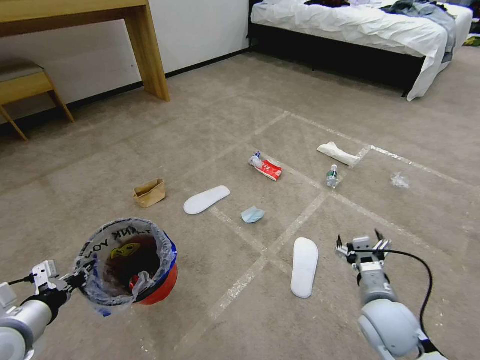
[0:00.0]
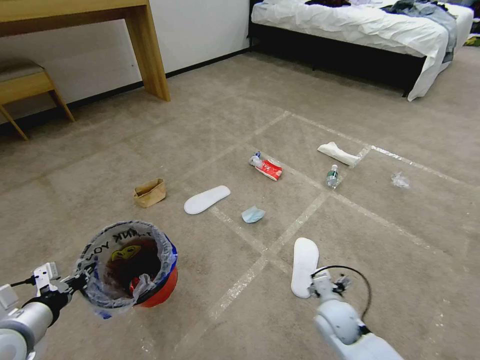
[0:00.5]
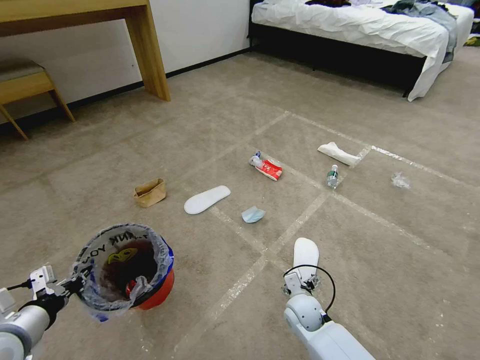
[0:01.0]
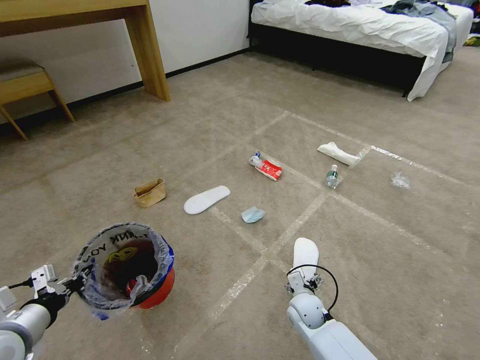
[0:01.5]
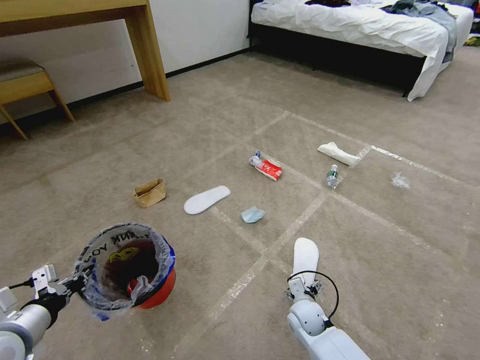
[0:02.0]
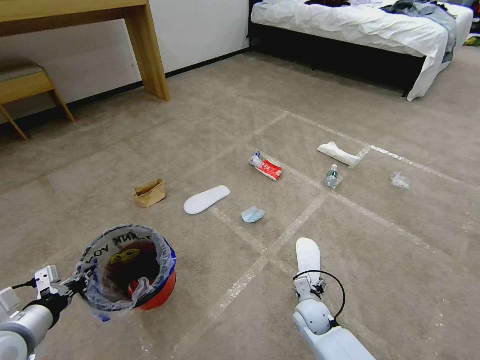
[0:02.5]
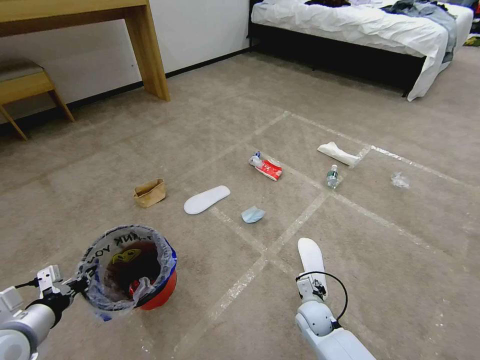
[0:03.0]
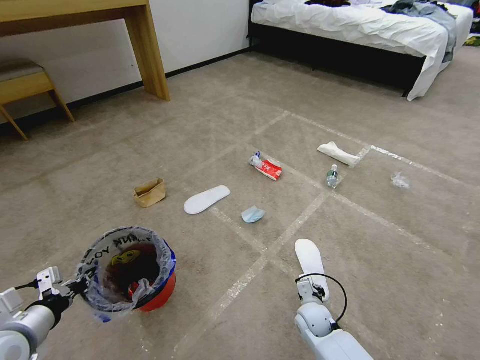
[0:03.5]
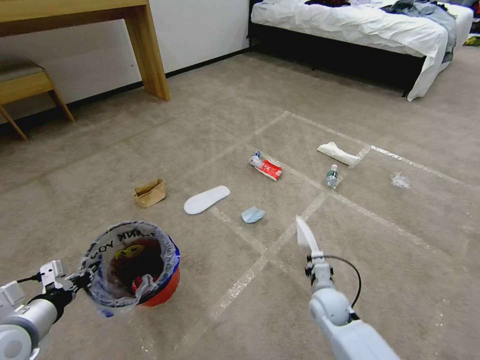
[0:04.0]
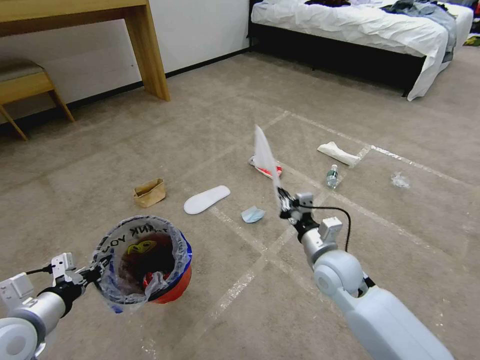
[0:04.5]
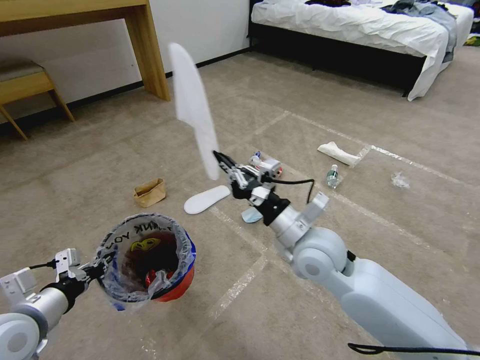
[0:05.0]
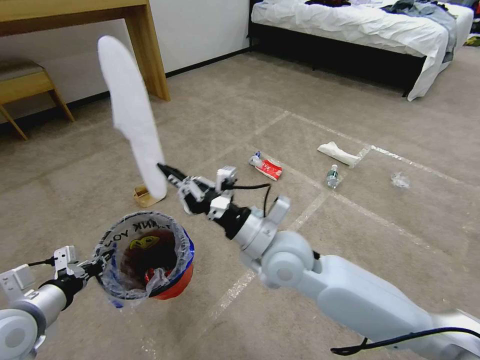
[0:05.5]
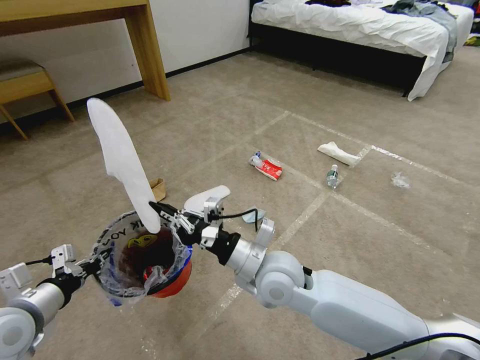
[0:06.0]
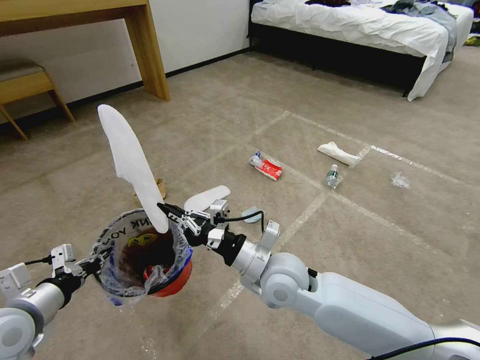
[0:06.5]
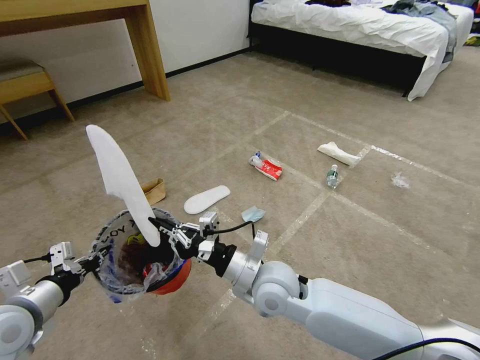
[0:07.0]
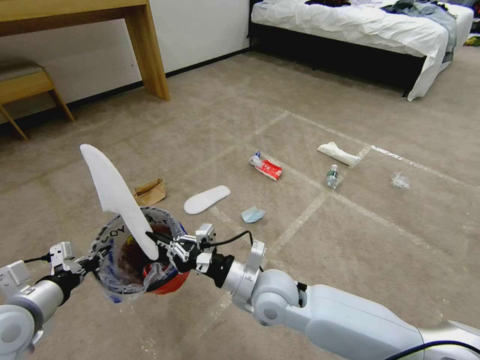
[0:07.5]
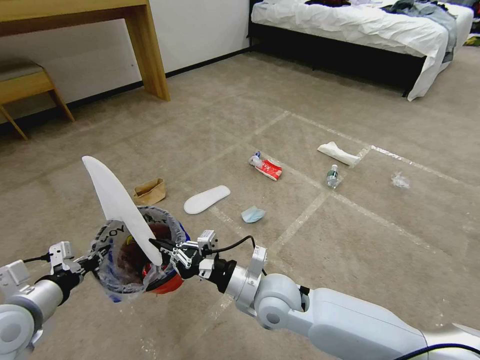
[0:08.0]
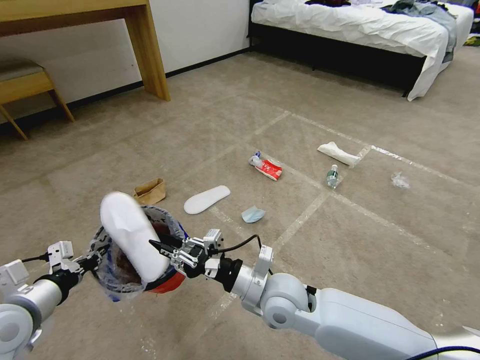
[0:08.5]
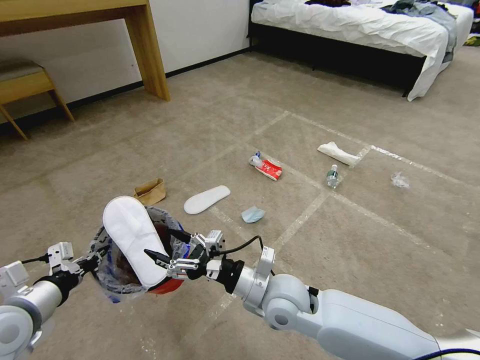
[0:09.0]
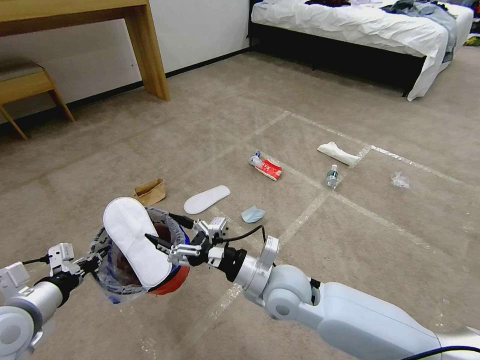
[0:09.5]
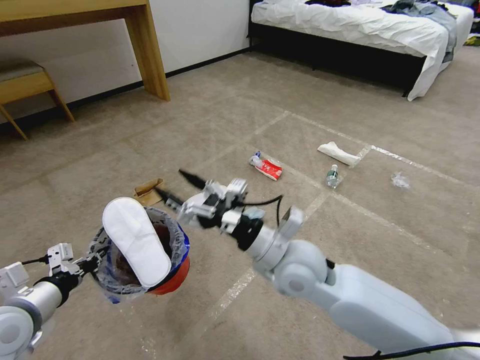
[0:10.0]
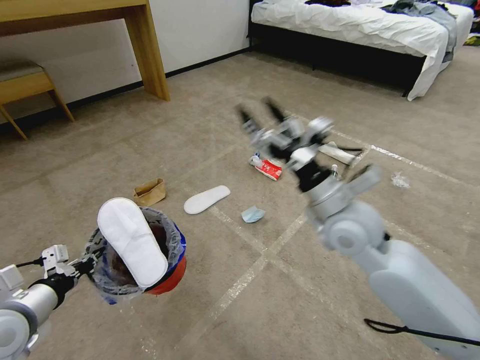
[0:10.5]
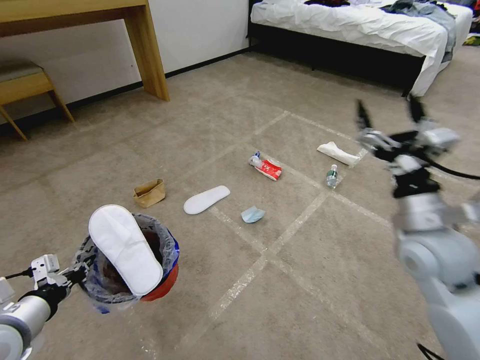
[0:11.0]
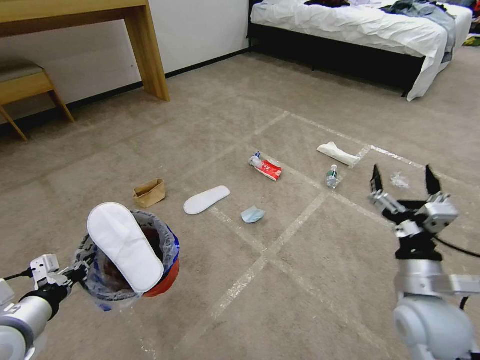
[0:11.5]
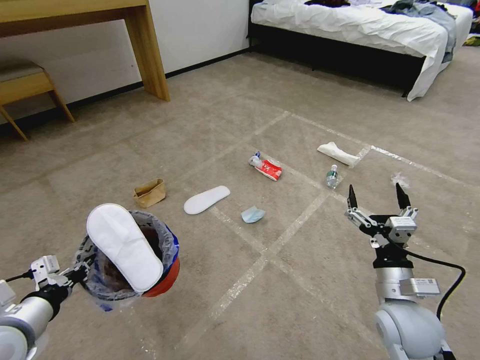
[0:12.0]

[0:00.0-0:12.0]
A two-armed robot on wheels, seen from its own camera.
Task of the whole recording: Pick up the trash bin and place the garbage on the floor into it.
0:00.0 to 0:02.0: The right gripper heads downward and to the left, covering some 20 cm.
0:02.0 to 0:04.0: The right gripper heads to the right, covering roughly 5 cm, and closes up.
0:04.0 to 0:06.0: The right gripper goes roughly 25 cm upward and to the left.
0:06.0 to 0:08.0: The right gripper moves downward, roughly 5 cm.
0:08.0 to 0:10.0: The right gripper shifts about 10 cm upward, and opens its fingers.
0:10.0 to 0:12.0: The right gripper moves to the right, some 20 cm.

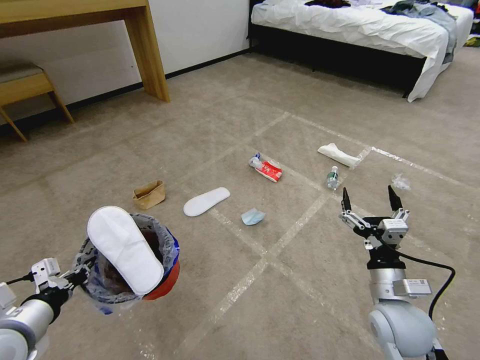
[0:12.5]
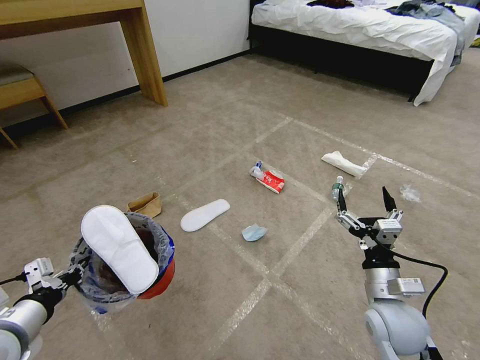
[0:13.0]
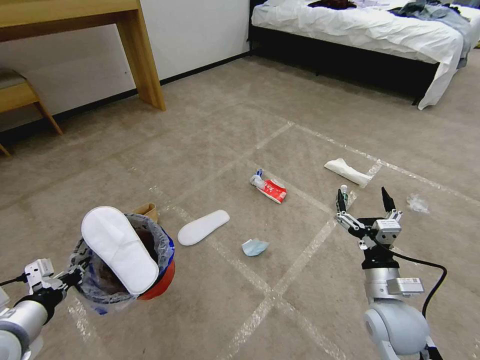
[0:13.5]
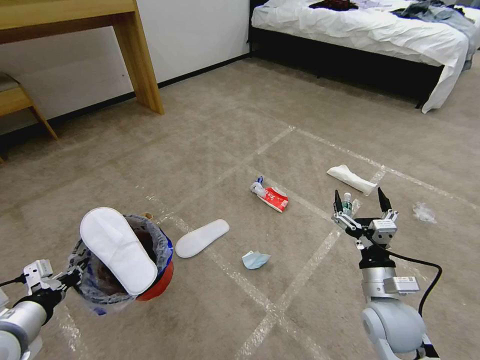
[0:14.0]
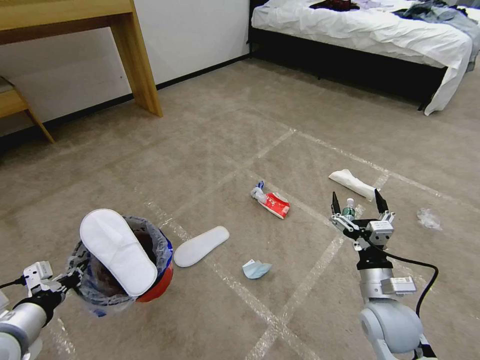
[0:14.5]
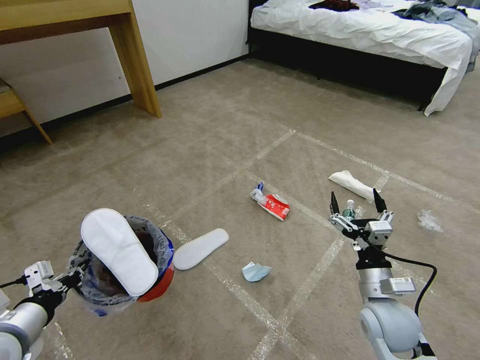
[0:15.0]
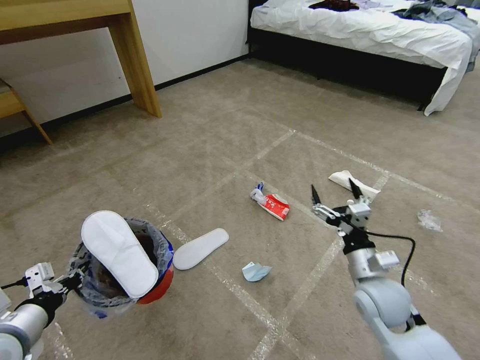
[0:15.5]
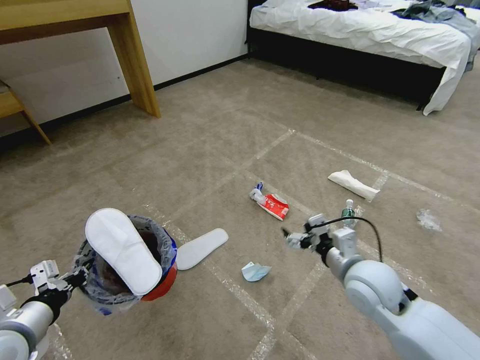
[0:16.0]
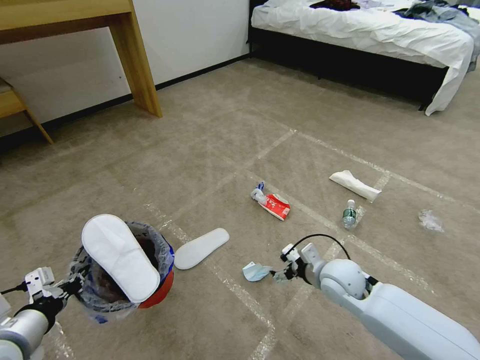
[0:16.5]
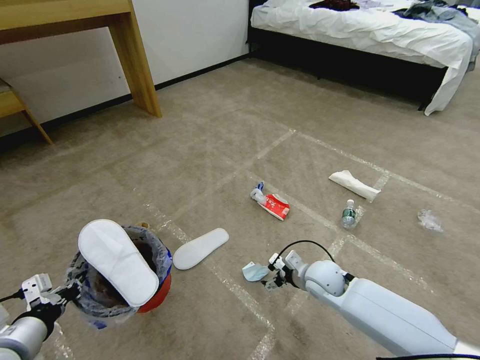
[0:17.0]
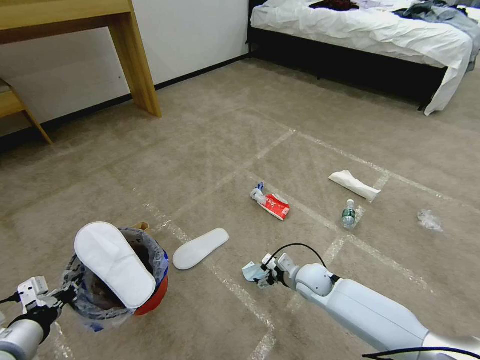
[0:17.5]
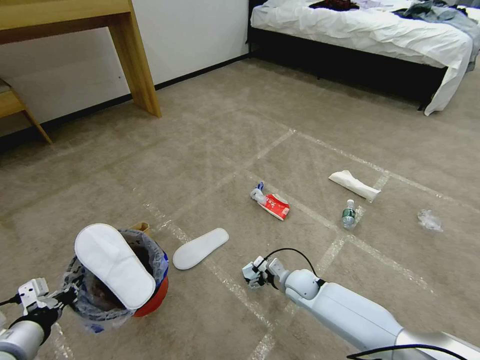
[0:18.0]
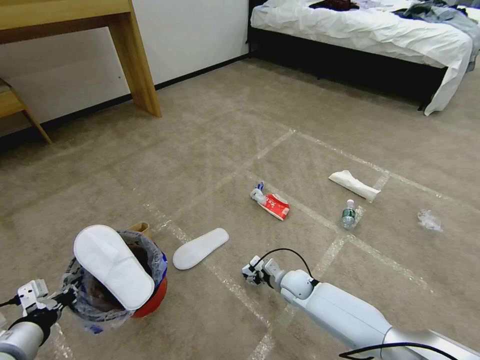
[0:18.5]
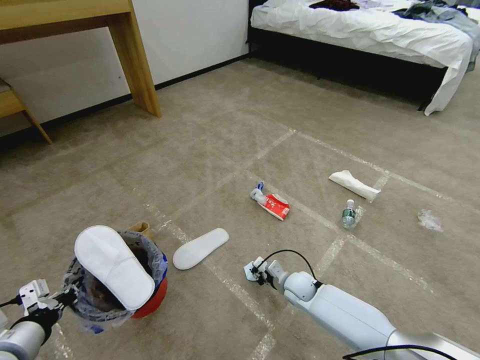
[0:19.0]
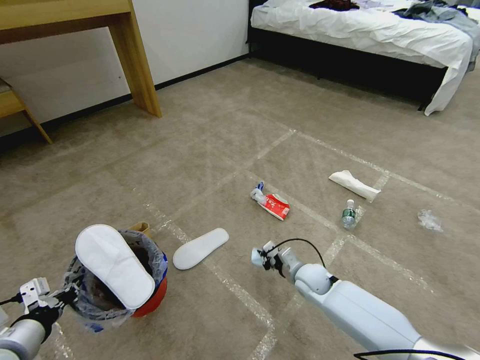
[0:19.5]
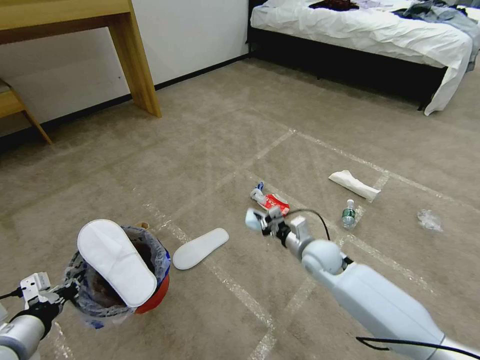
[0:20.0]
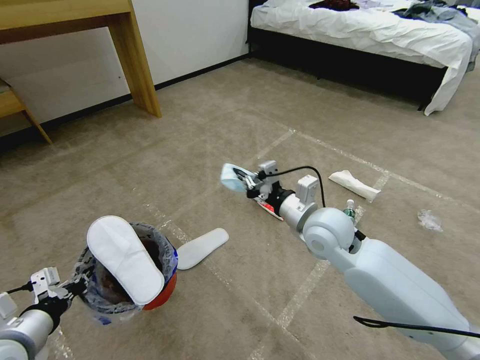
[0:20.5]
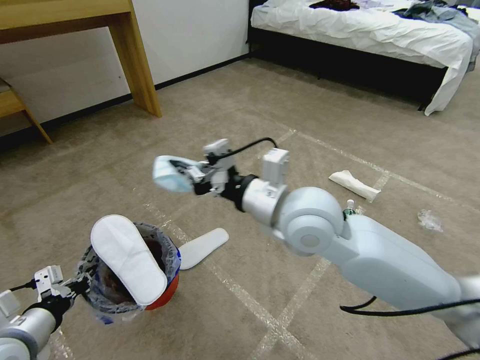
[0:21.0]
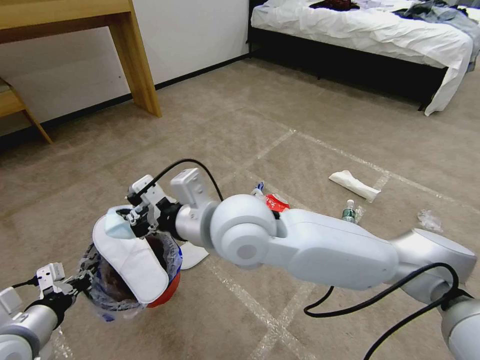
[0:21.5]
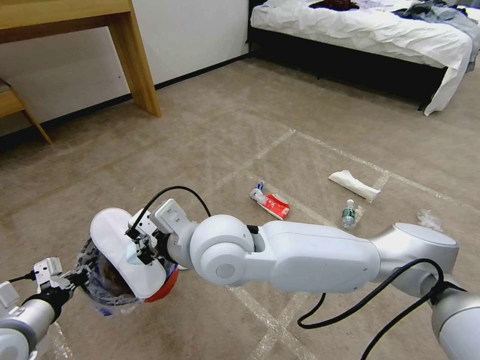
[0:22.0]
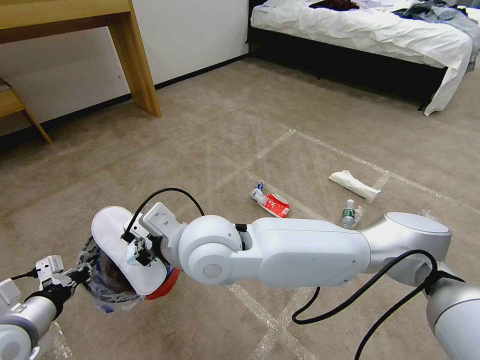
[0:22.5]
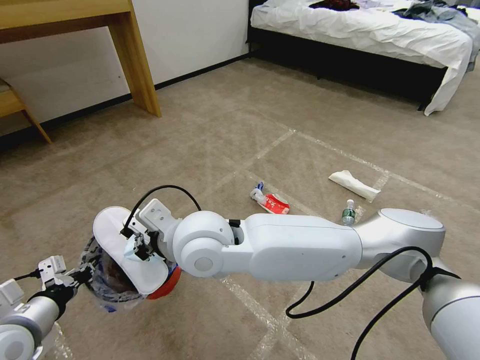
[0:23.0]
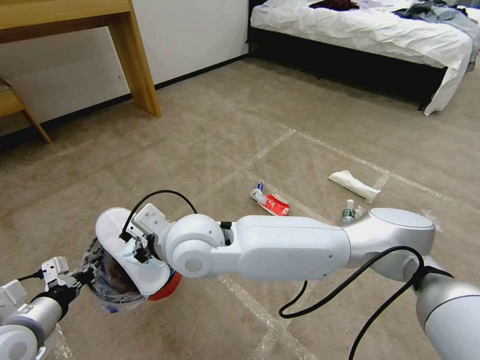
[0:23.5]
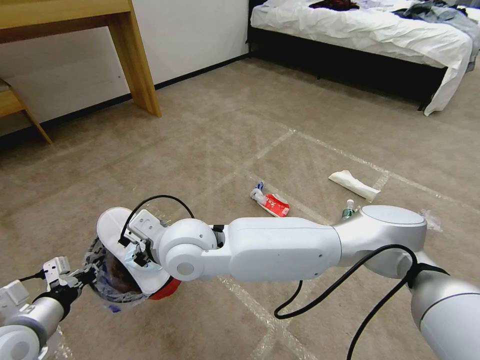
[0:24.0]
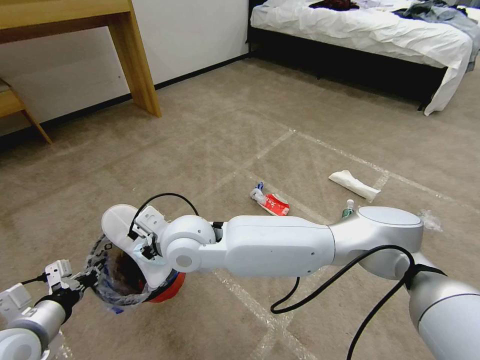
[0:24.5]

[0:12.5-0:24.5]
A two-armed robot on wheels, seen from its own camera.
Task of the whole recording: Pick up the trash bin and place the garbage on the floor into it.
0:14.5 to 0:16.5: The right gripper goes some 10 cm forward and to the left.
0:16.5 to 0:18.5: The right gripper shifts some 15 cm downward and to the left.
0:18.5 to 0:20.5: The right gripper is displaced upward by about 30 cm, and closes.
0:20.5 to 0:22.5: The right gripper travels to the left, upward and backward by about 25 cm.
0:22.5 to 0:24.5: The right gripper changes place by some 10 cm.

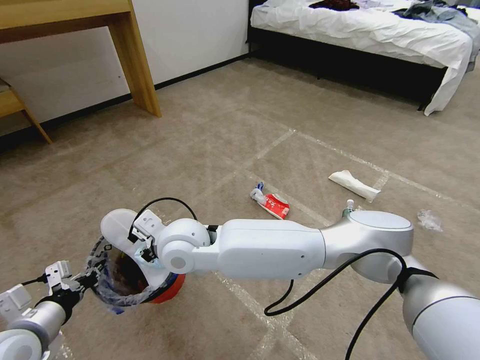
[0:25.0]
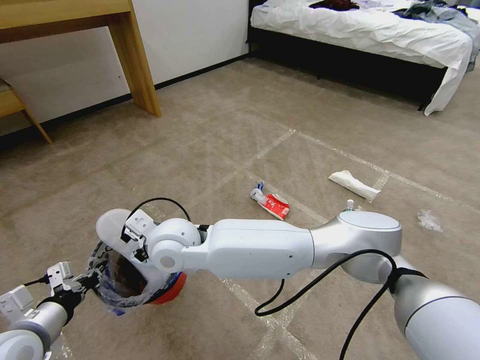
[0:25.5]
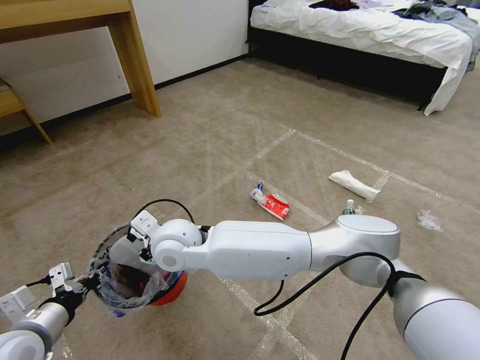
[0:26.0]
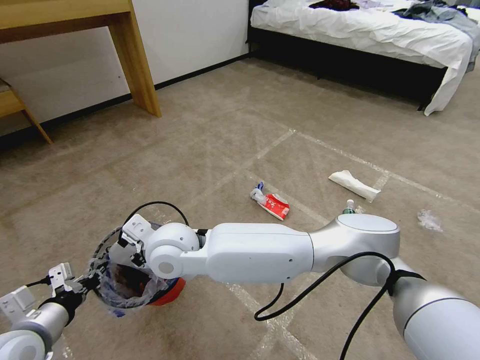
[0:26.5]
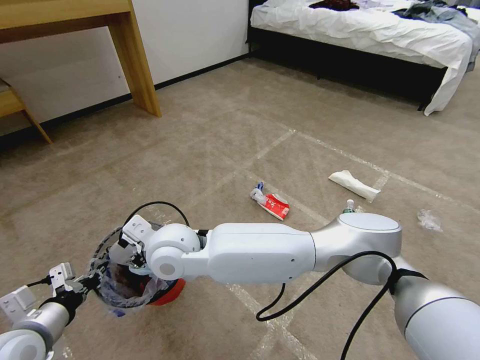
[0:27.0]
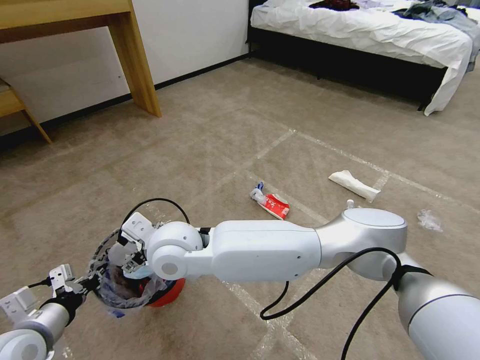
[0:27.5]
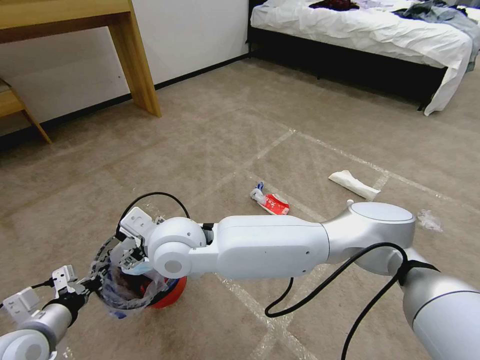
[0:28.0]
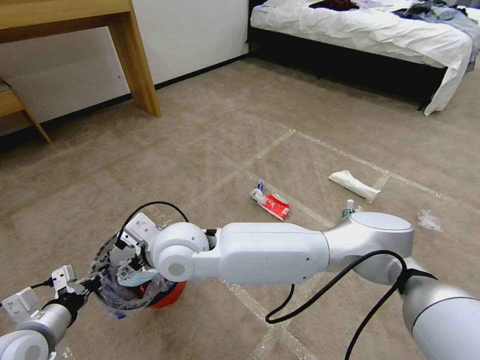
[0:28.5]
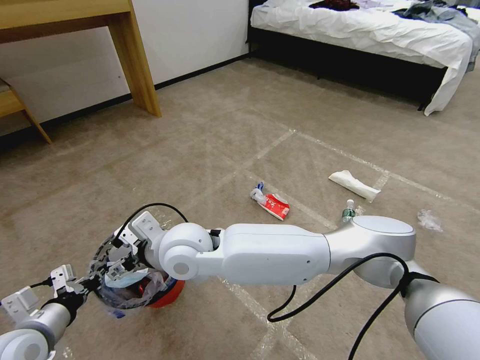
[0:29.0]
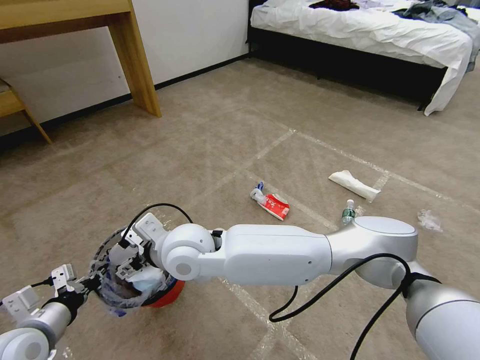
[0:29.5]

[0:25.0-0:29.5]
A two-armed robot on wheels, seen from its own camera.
Task of the whole recording: Pick up the trash bin and place the garbage on the floor into it.
0:25.0 to 0:27.0: The right gripper opens its fingers.
0:27.0 to 0:29.5: The right gripper opens.
